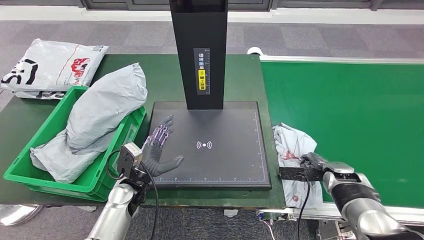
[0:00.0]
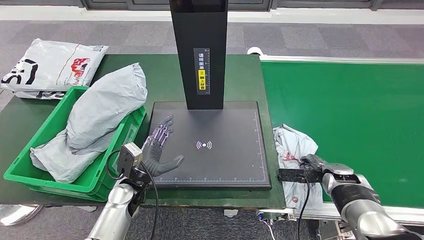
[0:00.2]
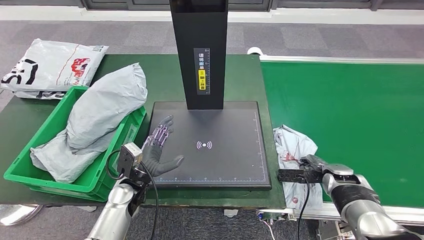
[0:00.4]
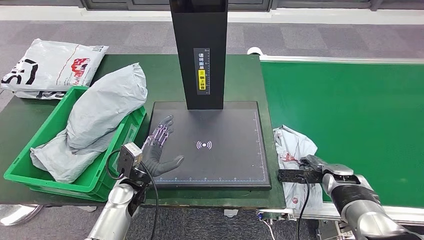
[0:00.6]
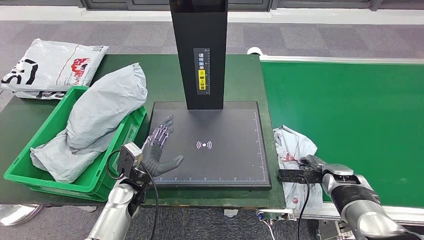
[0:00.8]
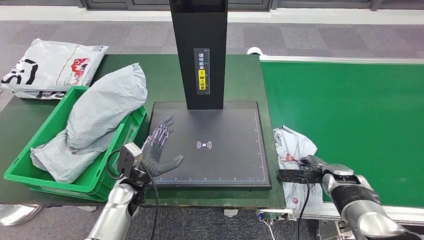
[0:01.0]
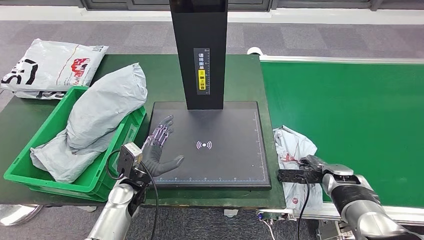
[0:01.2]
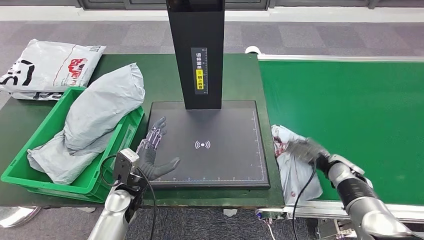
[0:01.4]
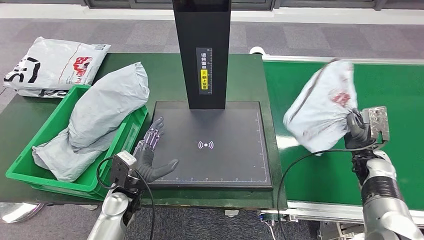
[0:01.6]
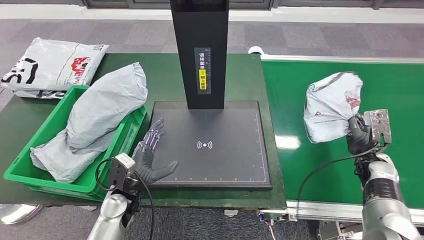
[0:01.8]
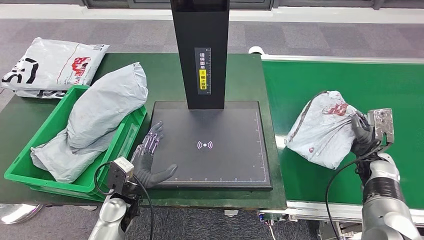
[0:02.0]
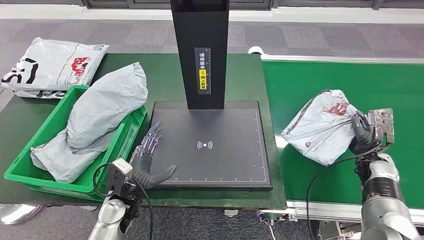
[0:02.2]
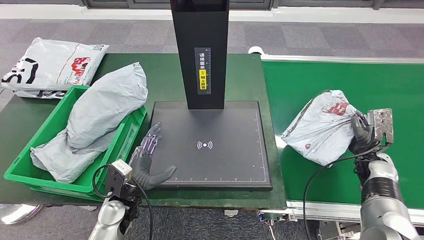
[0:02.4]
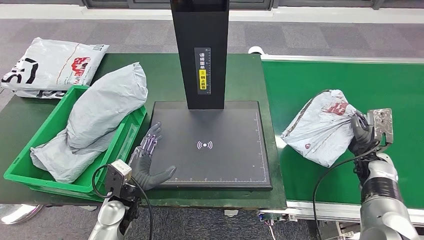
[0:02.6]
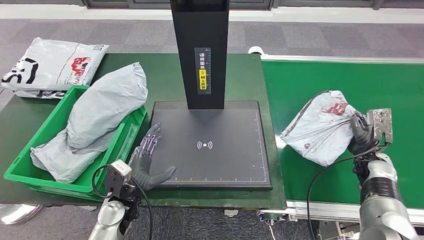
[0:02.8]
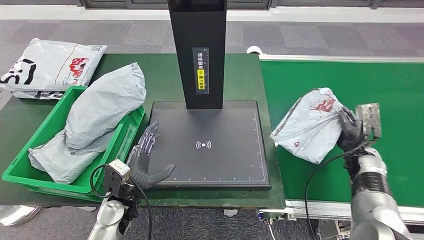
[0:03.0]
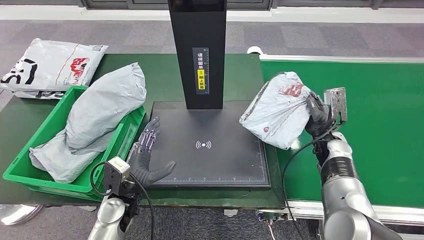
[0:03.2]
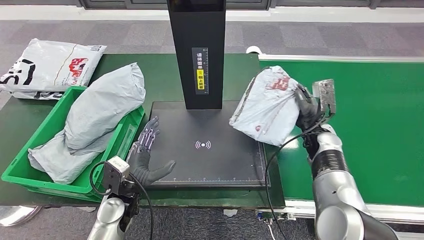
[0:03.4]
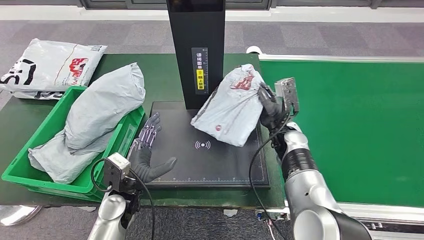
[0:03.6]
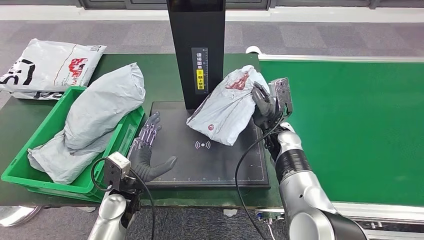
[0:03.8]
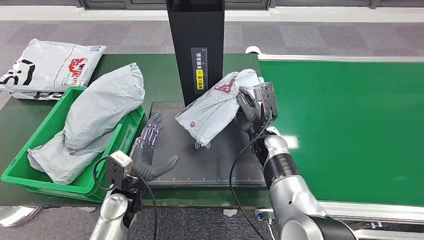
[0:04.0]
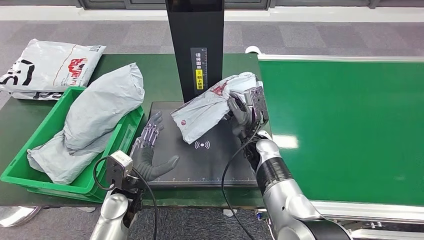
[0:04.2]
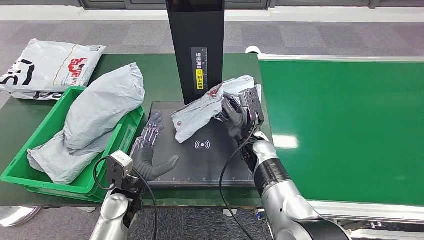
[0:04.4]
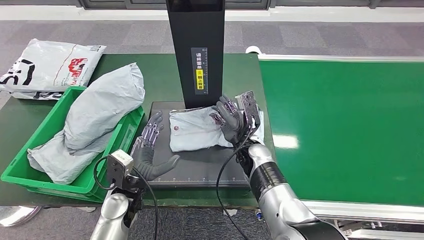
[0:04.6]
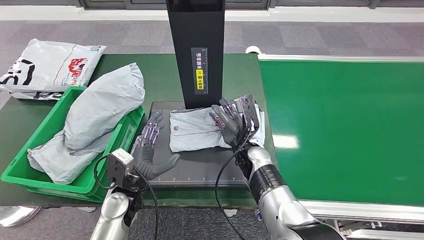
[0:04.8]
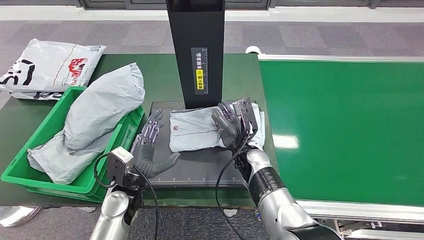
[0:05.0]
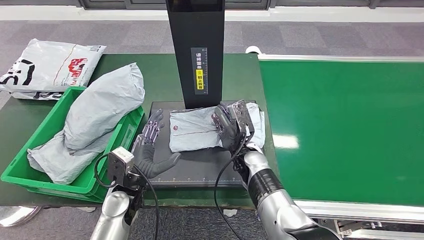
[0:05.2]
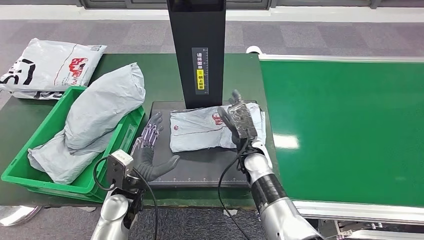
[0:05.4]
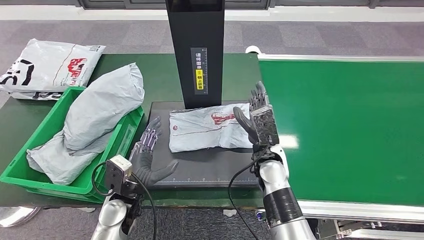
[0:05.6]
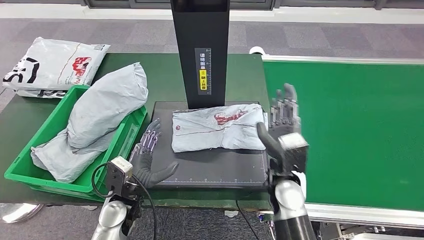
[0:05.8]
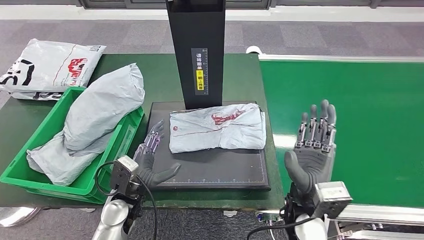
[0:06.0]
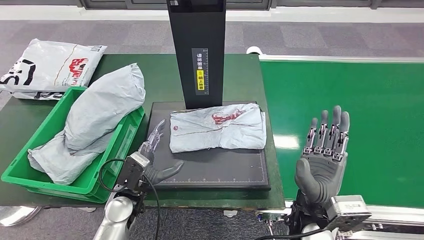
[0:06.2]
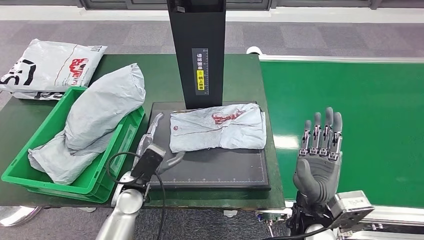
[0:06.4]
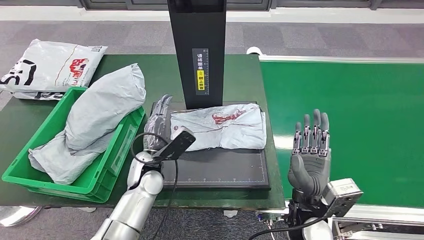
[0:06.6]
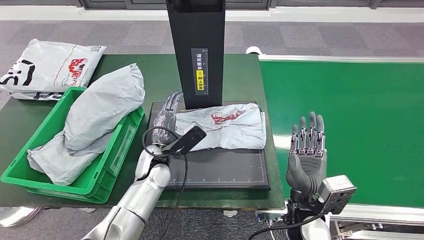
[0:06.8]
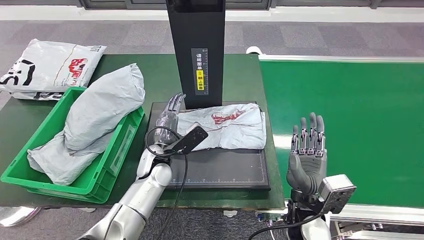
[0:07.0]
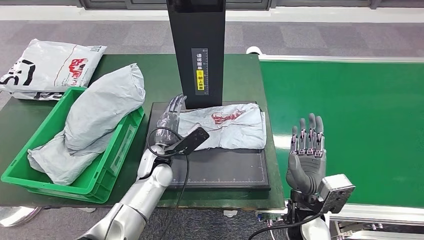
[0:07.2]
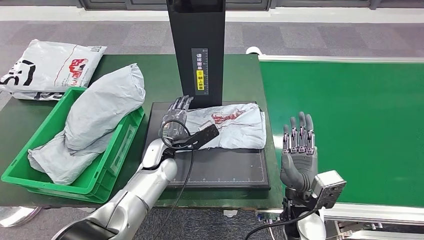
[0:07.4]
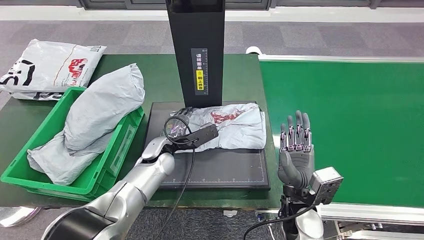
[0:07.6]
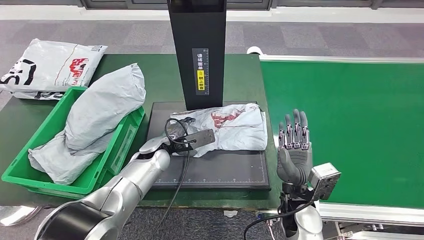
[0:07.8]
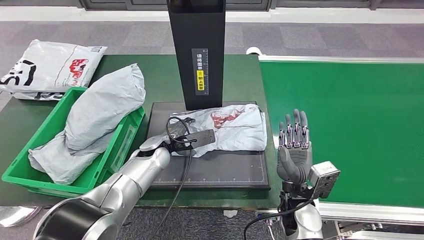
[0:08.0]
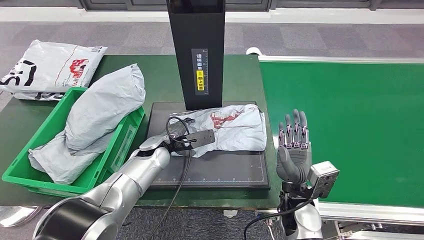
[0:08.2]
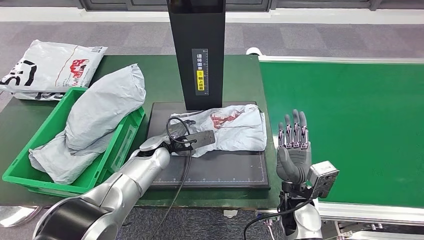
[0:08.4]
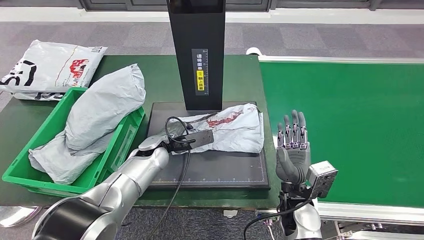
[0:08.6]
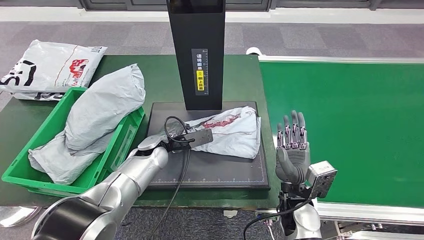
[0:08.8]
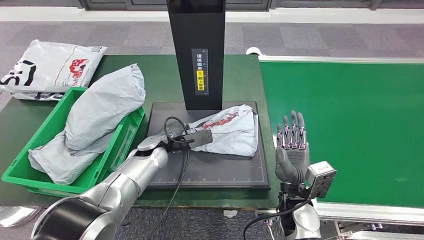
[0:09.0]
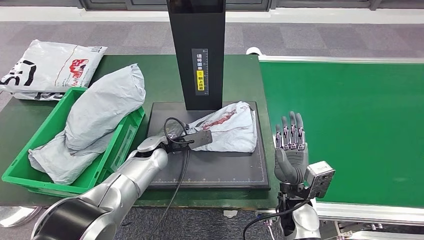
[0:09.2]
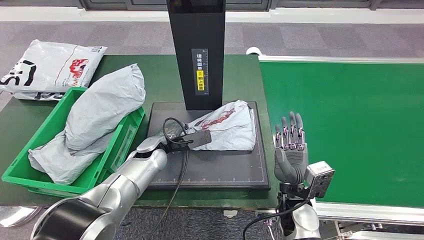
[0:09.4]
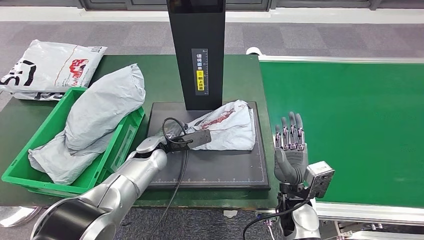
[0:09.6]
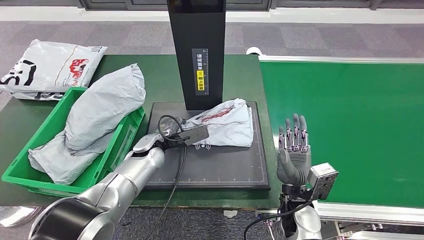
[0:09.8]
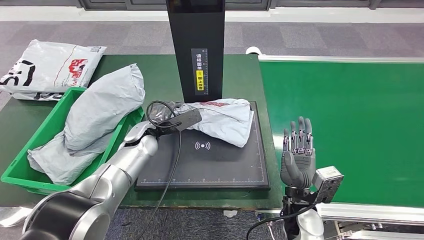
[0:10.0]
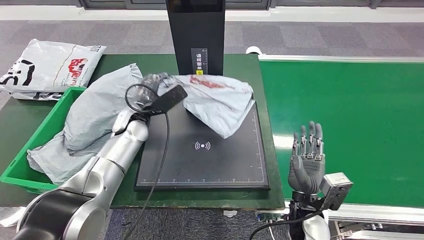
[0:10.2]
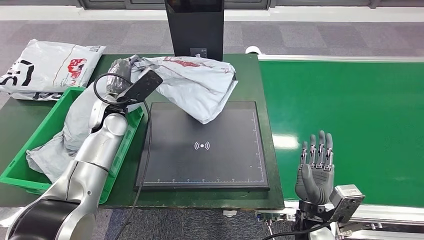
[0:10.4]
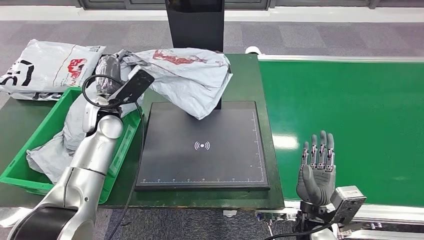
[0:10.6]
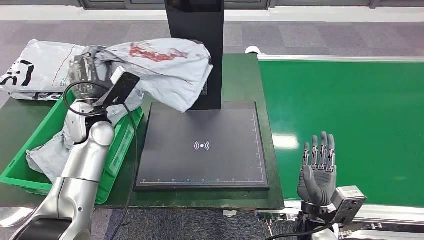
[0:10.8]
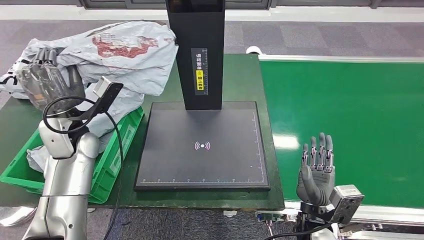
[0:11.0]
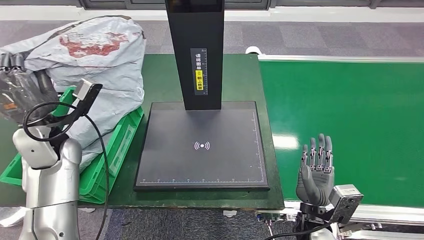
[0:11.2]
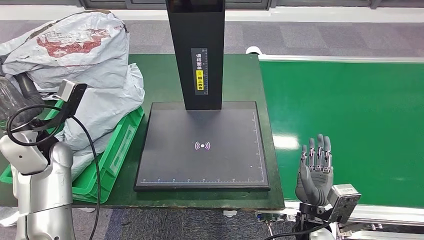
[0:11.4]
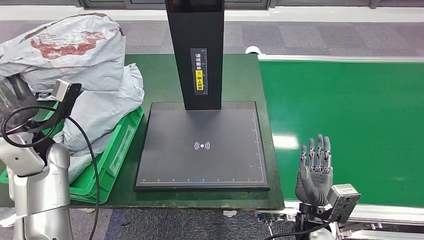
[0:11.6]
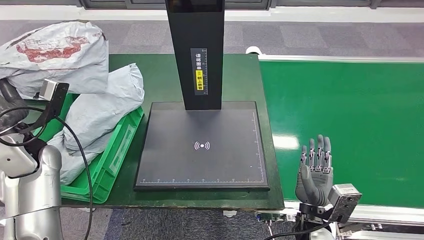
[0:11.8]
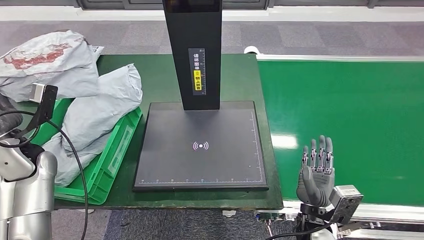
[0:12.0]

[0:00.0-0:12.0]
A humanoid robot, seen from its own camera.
Step, 0:00.0 to 0:02.2: Pick up the parcel from the conveyor belt.
Step, 0:02.6 to 0:06.0: Place the parcel onto the inbound machine.
Step, 0:06.2 to 0:10.6: Pick up the parcel from the inbound machine.
0:04.4 to 0:06.0: The right hand heads backward and to the right, covering some 15 cm.
0:06.0 to 0:07.6: The left hand shifts about 15 cm forward and to the right.

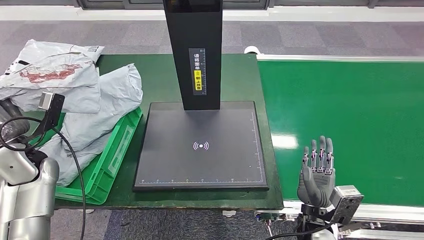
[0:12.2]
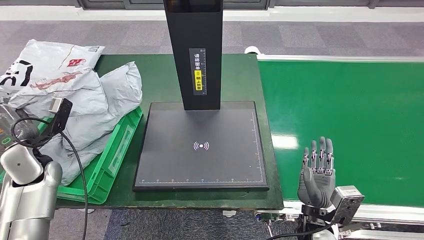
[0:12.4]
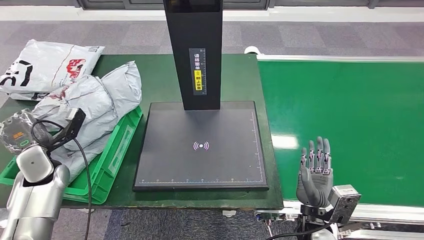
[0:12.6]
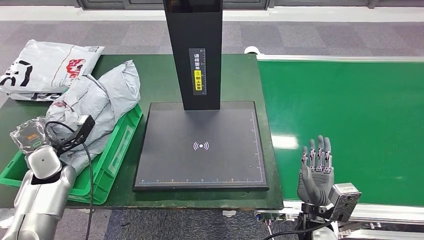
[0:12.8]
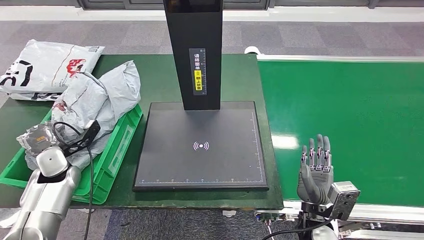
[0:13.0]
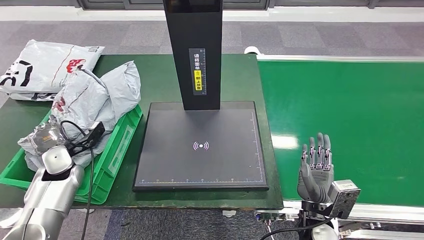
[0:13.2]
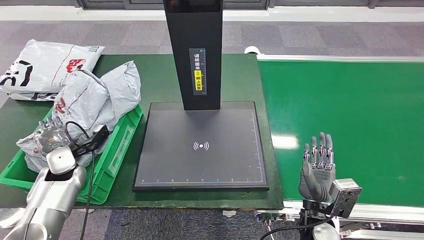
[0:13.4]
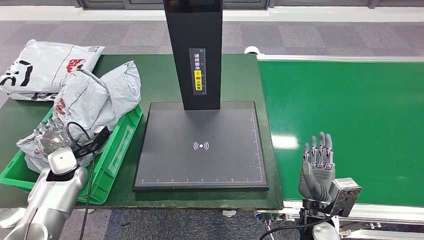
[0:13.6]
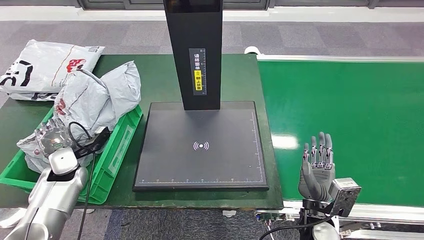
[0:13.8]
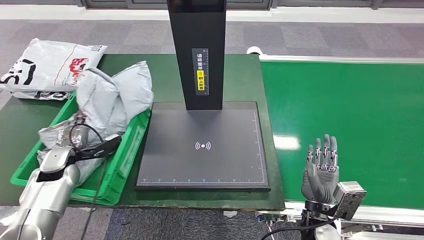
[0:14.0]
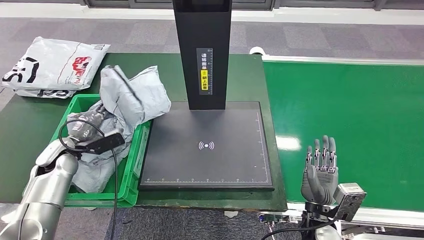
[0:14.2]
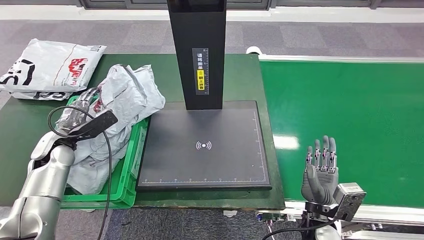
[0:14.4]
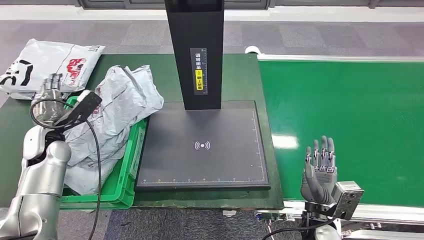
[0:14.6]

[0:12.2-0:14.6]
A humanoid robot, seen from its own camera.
Step, 0:12.2 to 0:14.4: Place the parcel into the delivery box.
0:12.2 to 0:13.4: The left hand heads downward, covering some 10 cm.
0:13.4 to 0:14.6: The left hand moves upward, about 5 cm.
